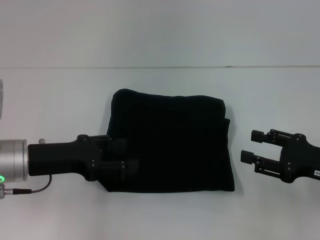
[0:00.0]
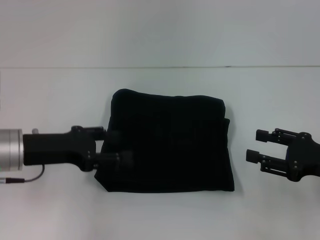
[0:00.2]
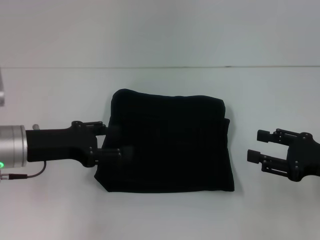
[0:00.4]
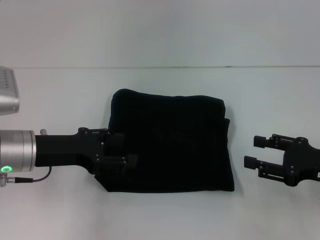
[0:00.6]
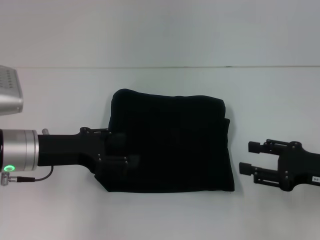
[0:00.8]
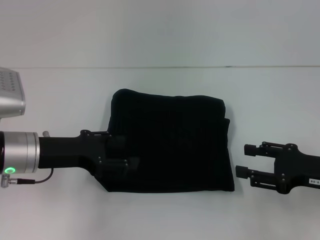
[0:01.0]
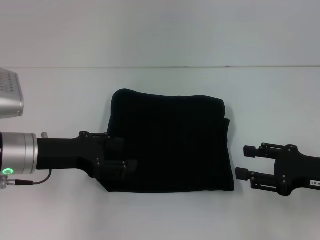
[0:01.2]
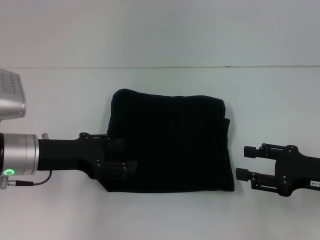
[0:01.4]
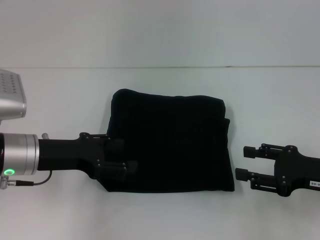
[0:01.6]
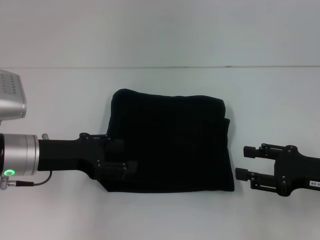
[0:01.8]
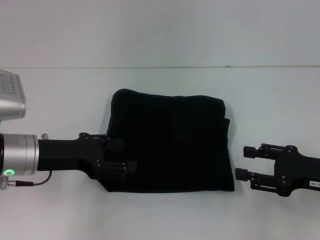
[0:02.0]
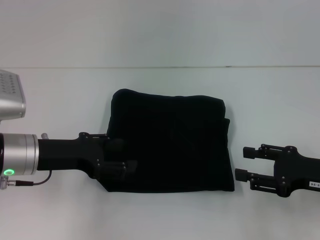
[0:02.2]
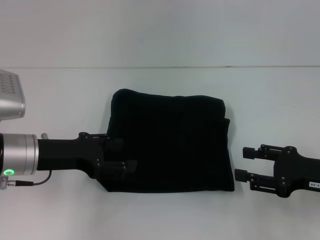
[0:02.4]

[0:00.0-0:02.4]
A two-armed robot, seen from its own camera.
0:00.0 to 0:01.2: There are only small adjustments of the grippers.
0:01.2 to 0:02.4: Neither gripper changes place.

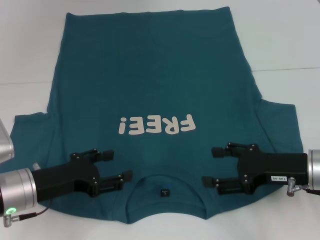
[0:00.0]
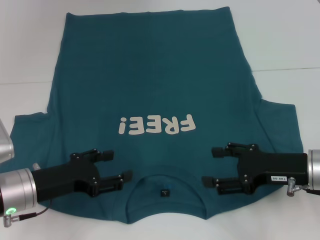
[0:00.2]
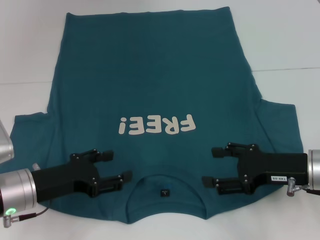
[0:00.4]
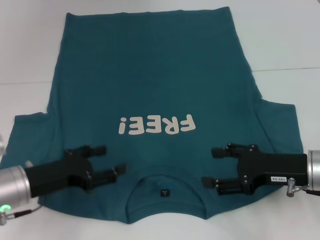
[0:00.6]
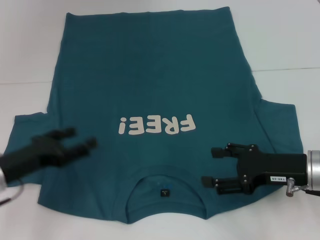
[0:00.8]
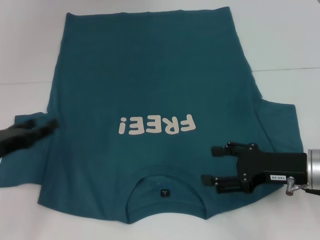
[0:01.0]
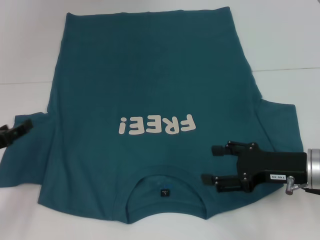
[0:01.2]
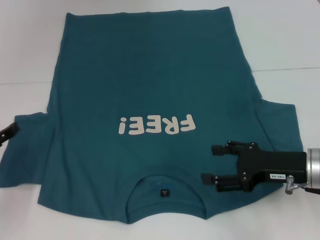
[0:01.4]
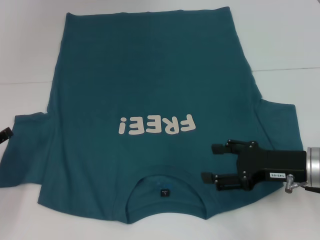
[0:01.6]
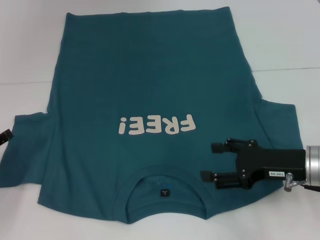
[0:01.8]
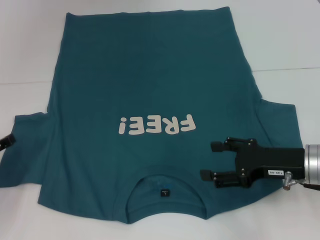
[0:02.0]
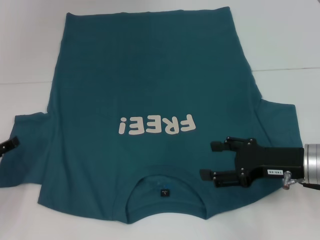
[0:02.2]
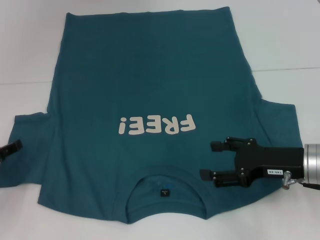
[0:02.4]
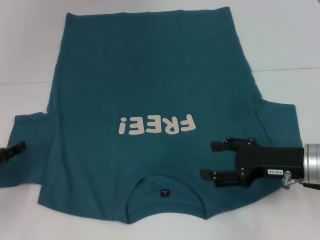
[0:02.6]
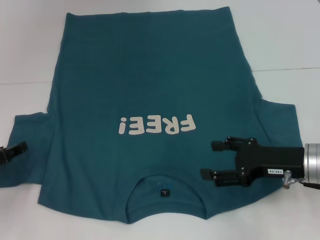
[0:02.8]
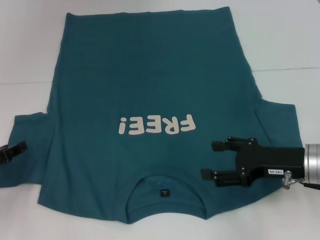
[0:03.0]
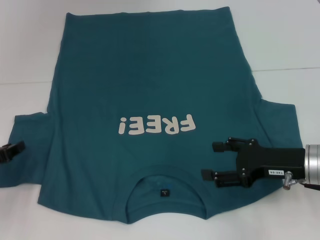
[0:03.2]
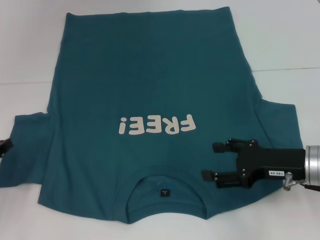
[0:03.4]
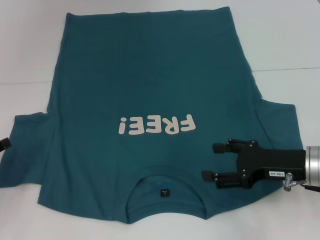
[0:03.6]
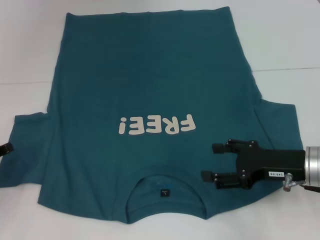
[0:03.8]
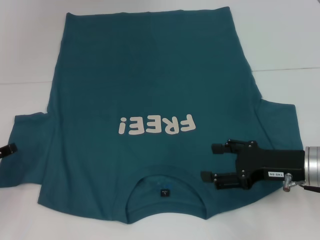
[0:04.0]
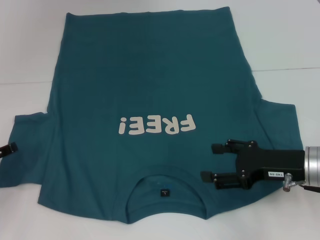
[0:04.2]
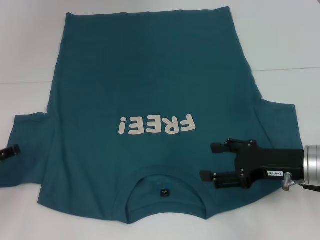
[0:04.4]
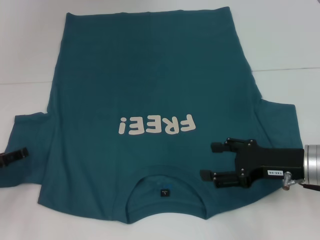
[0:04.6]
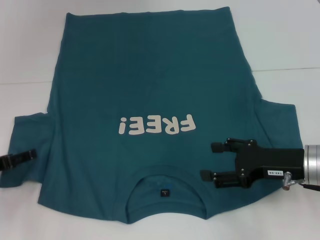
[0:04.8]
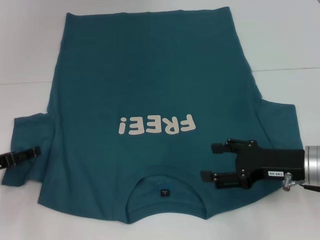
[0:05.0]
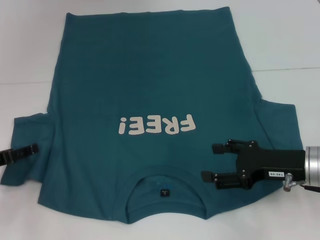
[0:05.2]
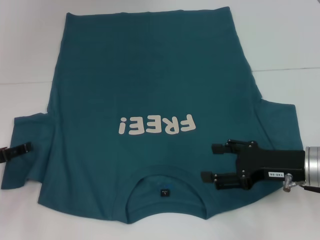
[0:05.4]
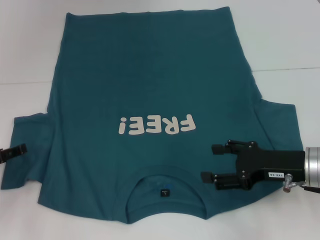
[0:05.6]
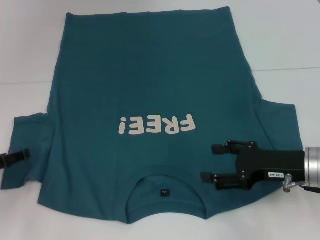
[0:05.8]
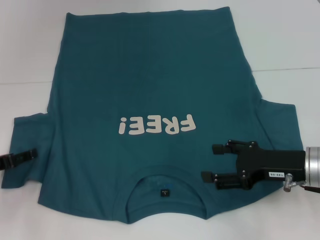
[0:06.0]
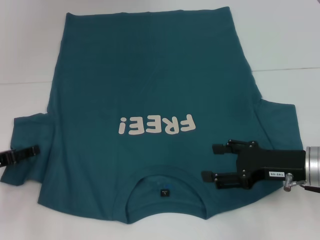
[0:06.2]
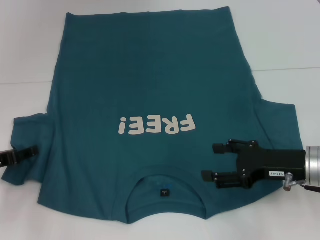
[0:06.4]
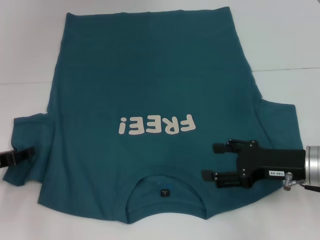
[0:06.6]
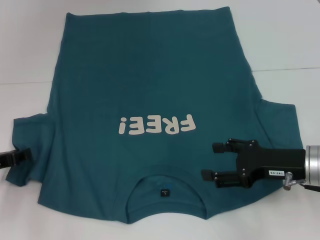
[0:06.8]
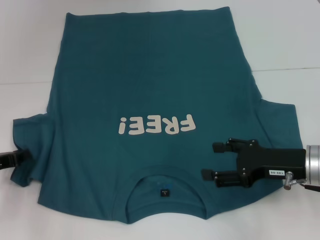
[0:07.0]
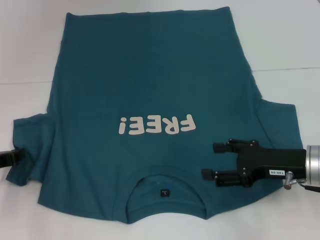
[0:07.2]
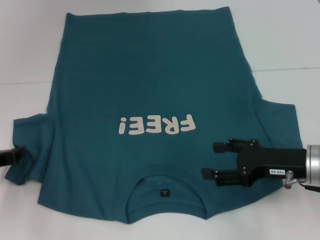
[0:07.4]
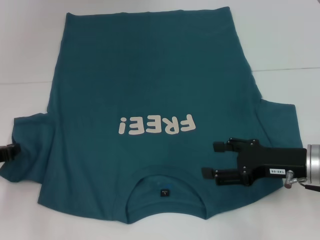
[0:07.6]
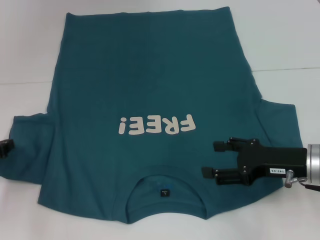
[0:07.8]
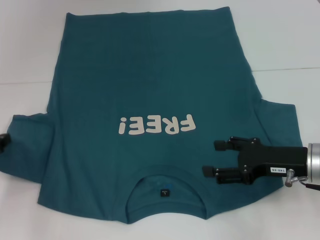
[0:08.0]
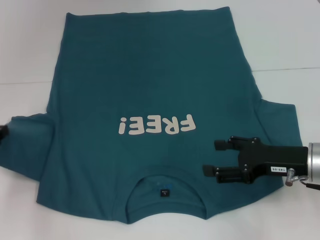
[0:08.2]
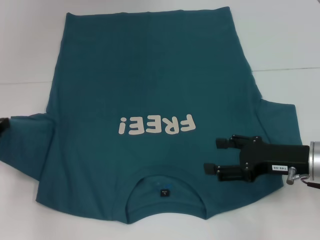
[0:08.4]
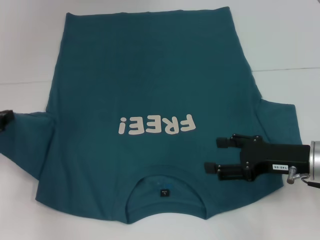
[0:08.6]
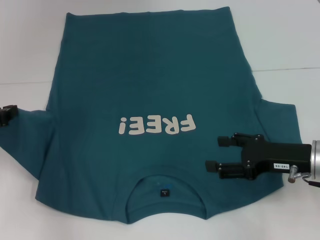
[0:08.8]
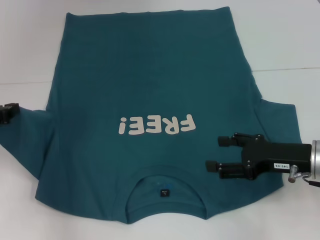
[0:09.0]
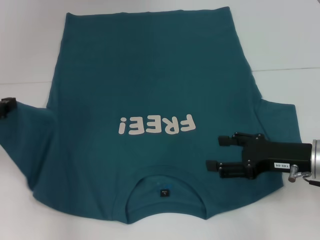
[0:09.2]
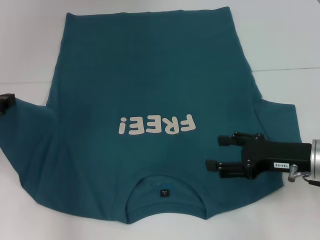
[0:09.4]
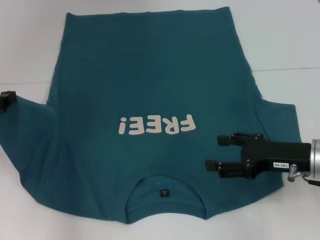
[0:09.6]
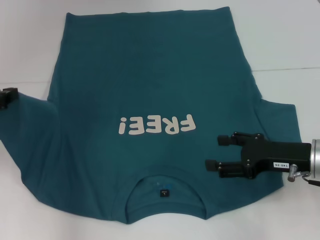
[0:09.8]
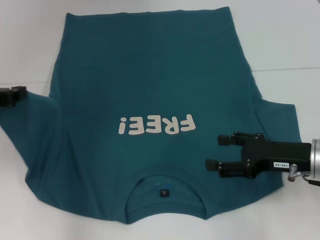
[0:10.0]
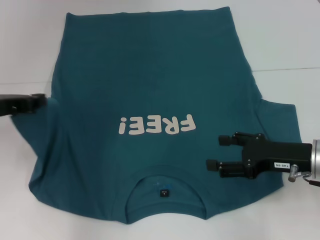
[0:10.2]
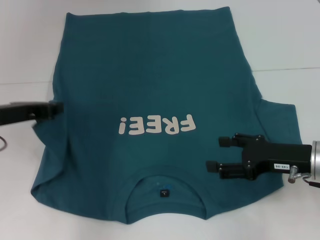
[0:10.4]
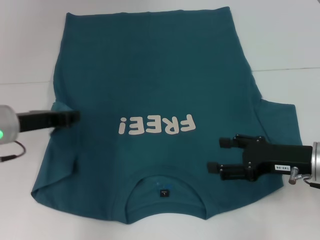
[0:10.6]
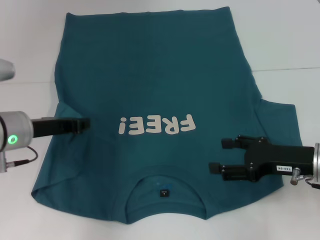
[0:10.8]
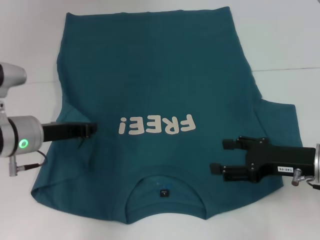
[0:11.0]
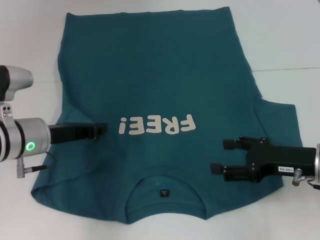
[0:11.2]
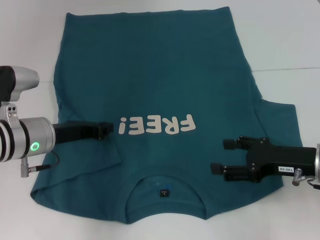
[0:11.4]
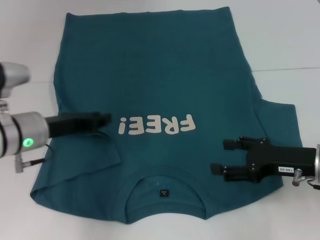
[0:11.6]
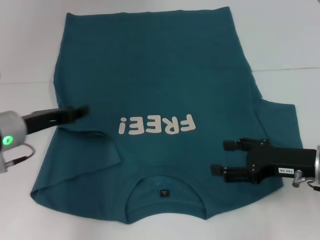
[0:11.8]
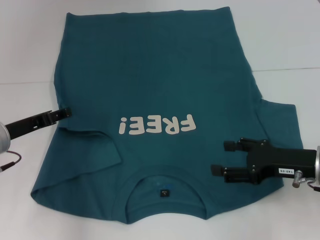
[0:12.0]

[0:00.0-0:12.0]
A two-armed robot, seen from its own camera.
0:00.0 to 0:01.6: The left gripper heads to the left, covering about 10 cm.
0:01.6 to 0:03.0: There are only small adjustments of the grippers.
0:04.4 to 0:06.0: The grippers stay close to where they were, moving slightly.
0:06.0 to 0:07.6: The left gripper closes up.
0:07.6 to 0:09.0: The left gripper heads upward, covering about 5 cm.
0:09.0 to 0:10.4: The left gripper moves to the right, some 5 cm.
0:10.4 to 0:12.0: The left gripper heads downward, covering approximately 5 cm, and opens its fingers.

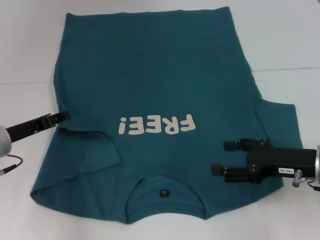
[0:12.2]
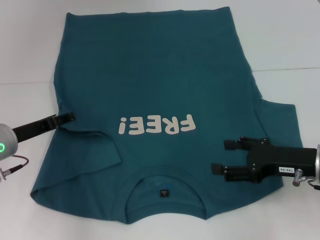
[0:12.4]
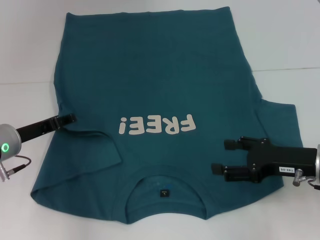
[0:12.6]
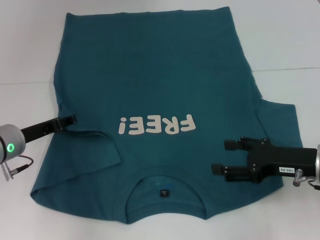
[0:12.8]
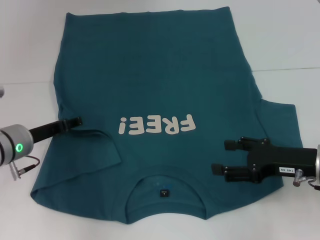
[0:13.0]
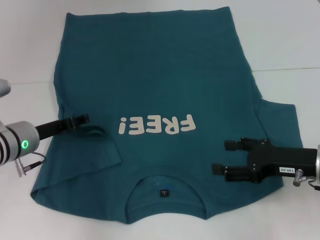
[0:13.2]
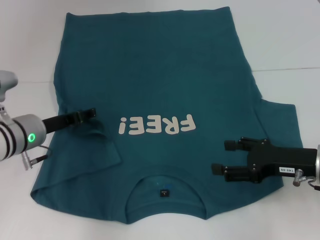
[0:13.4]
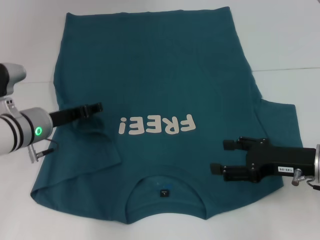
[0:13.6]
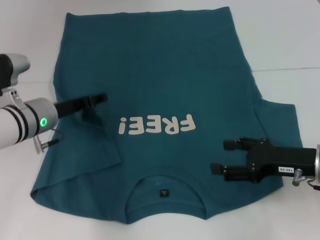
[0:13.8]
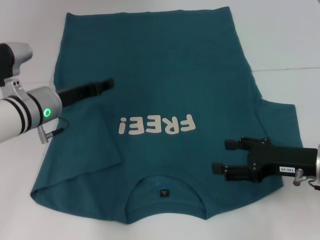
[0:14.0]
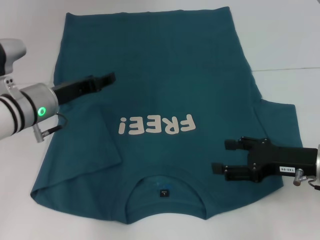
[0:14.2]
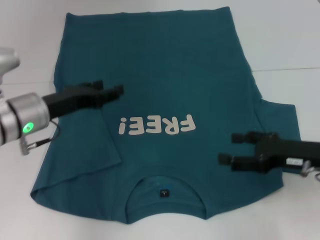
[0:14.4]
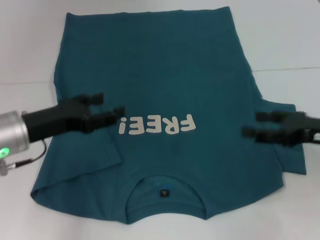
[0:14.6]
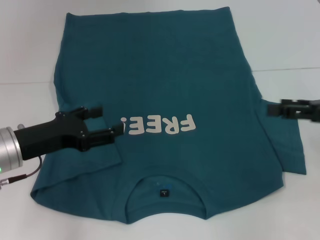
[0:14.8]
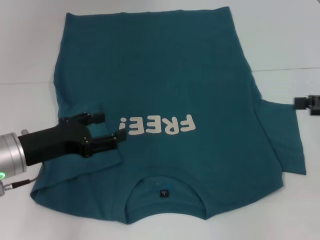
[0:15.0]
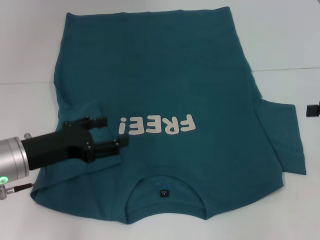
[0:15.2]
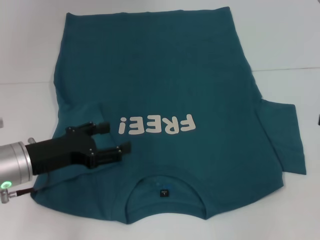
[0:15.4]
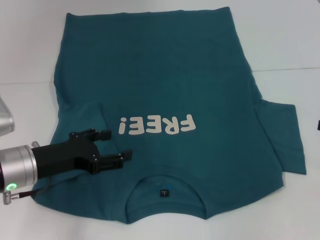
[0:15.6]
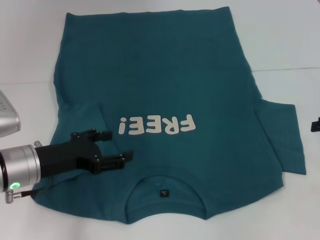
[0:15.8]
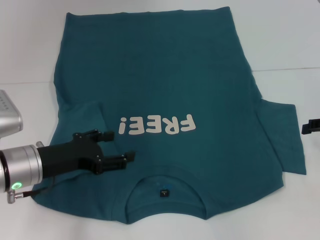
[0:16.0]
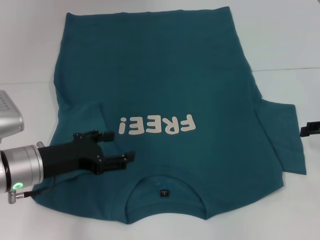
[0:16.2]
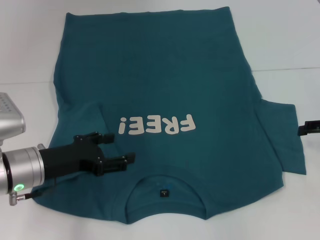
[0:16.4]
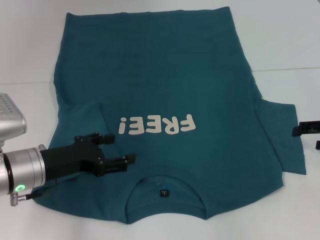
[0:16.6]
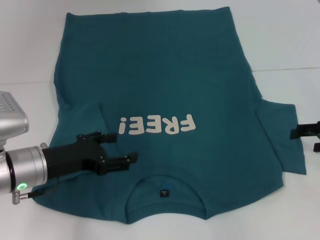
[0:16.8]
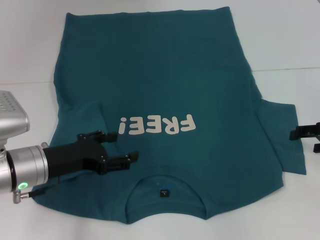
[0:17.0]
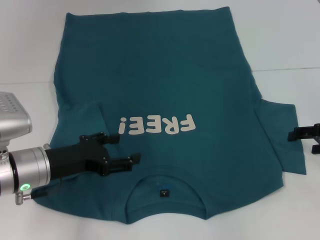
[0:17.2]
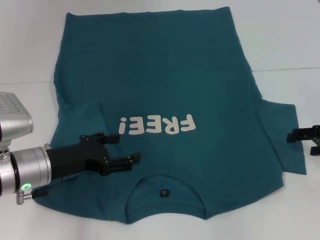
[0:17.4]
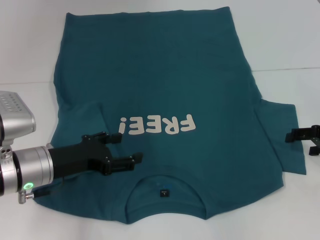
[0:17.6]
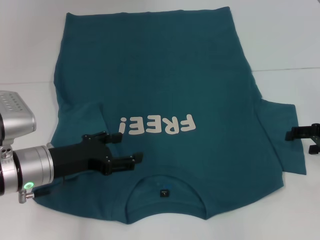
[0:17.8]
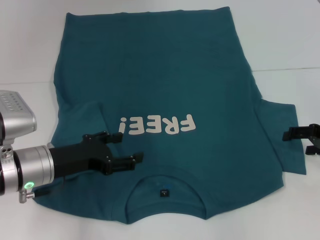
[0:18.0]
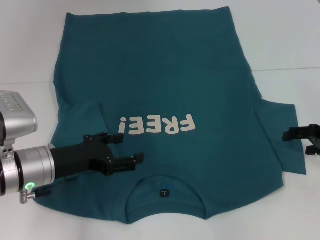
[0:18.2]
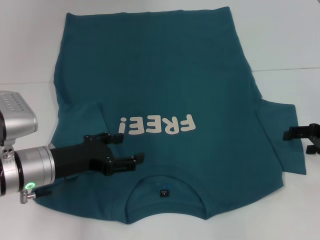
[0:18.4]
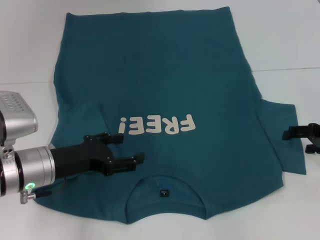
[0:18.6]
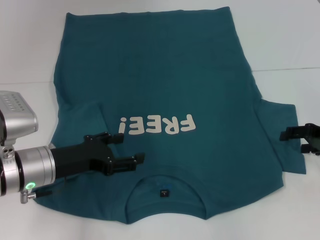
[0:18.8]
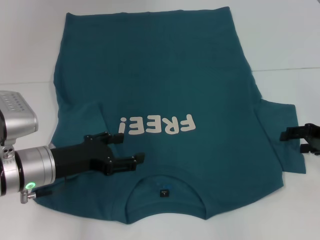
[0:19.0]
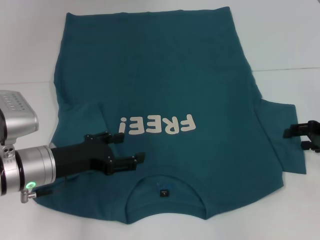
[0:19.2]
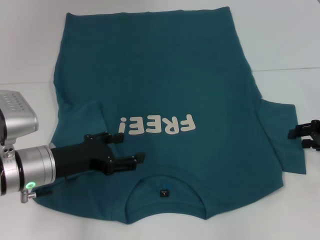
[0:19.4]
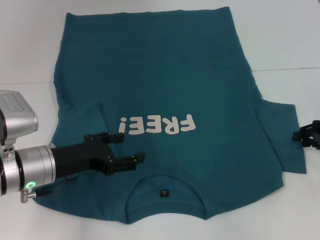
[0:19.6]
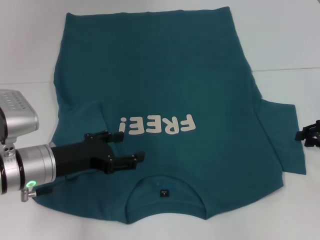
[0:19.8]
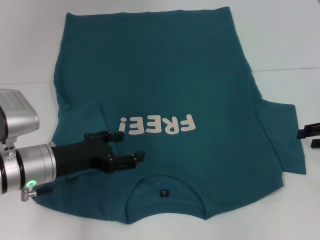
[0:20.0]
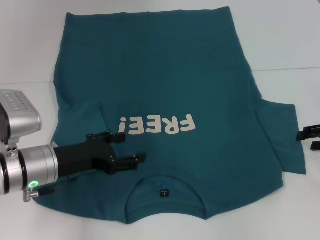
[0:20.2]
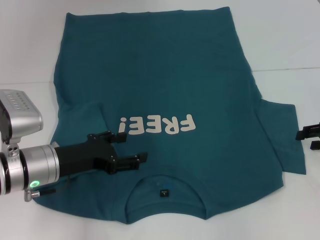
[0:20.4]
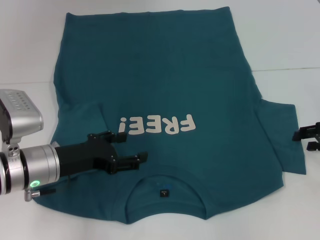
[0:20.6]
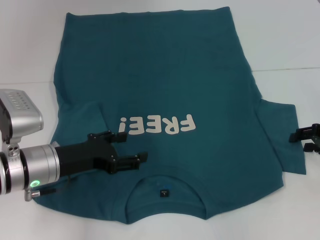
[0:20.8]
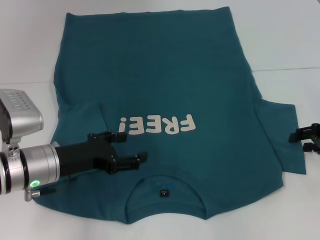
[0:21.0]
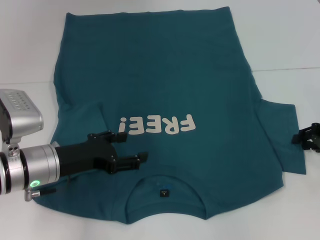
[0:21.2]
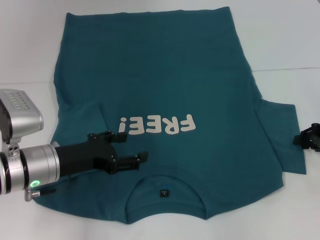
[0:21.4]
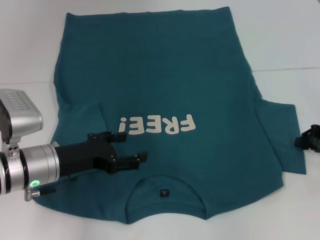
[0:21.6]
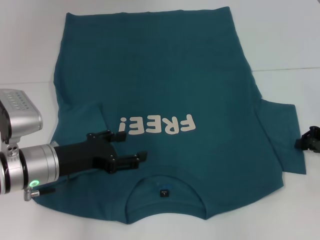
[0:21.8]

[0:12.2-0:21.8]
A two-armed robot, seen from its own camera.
Step, 0:12.2 to 0:14.2: Fold the bottom left sleeve with your left hand.
0:12.2 to 0:13.8: The left gripper travels to the right by some 5 cm.
0:13.8 to 0:15.4: The left gripper shifts approximately 10 cm backward; the right gripper moves to the right and upward, some 15 cm.
0:15.4 to 0:17.0: The right gripper travels downward by approximately 5 cm.
0:17.0 to 0:20.2: The grippers move only a little.
